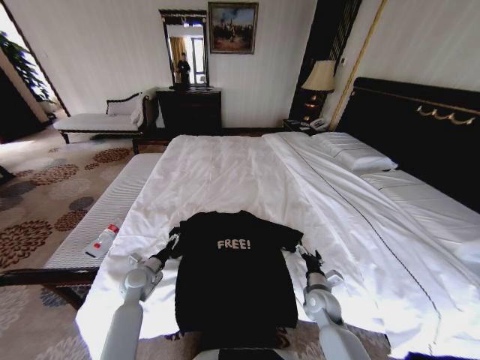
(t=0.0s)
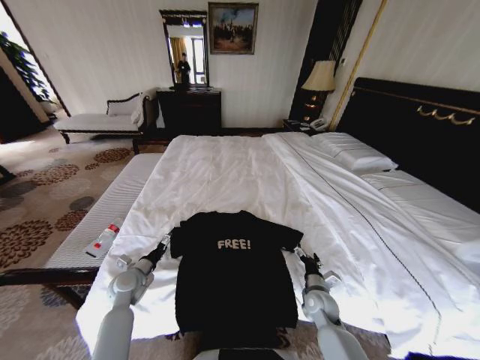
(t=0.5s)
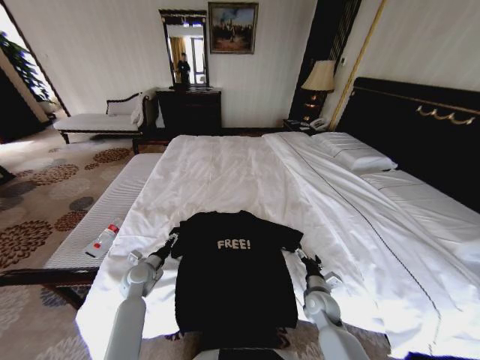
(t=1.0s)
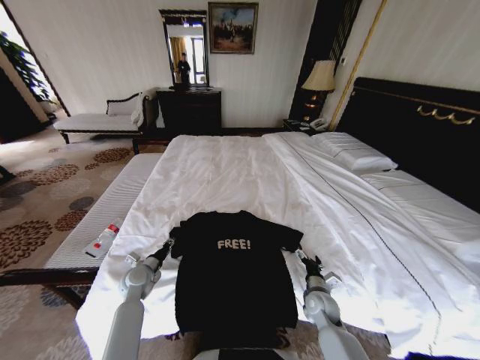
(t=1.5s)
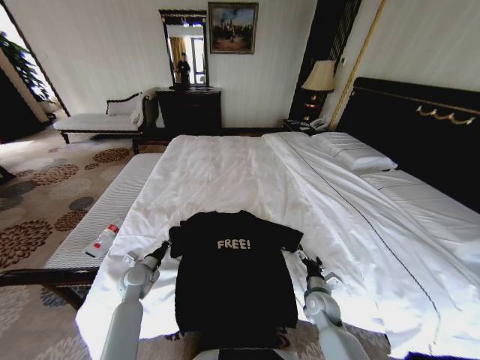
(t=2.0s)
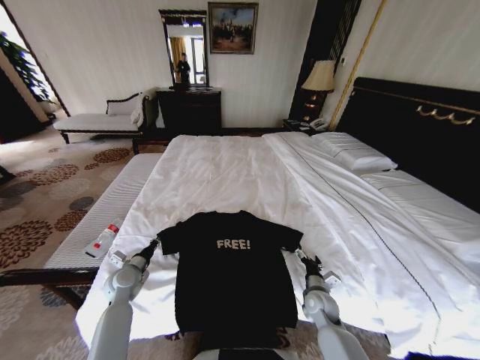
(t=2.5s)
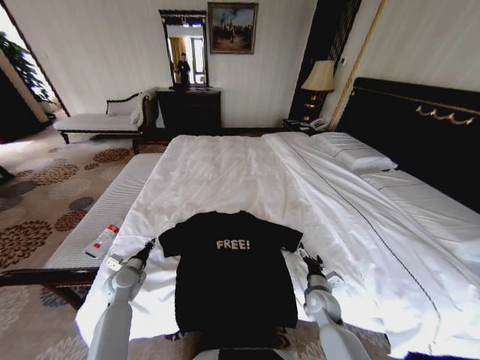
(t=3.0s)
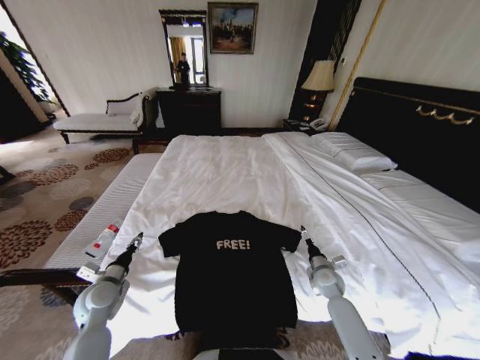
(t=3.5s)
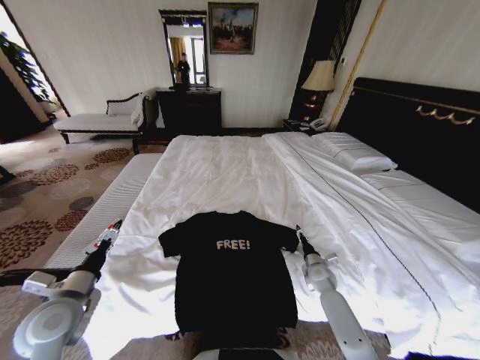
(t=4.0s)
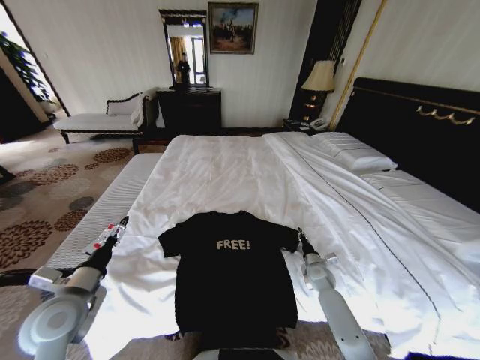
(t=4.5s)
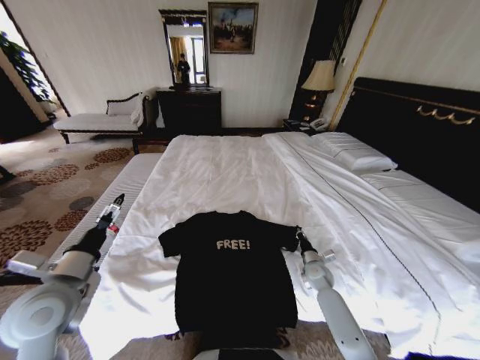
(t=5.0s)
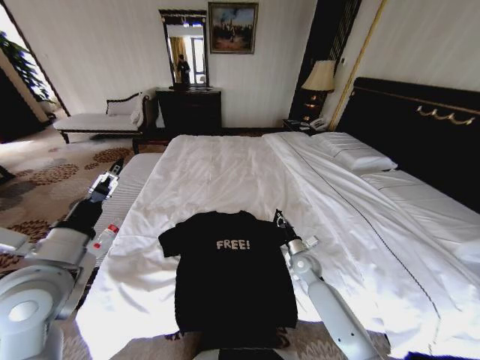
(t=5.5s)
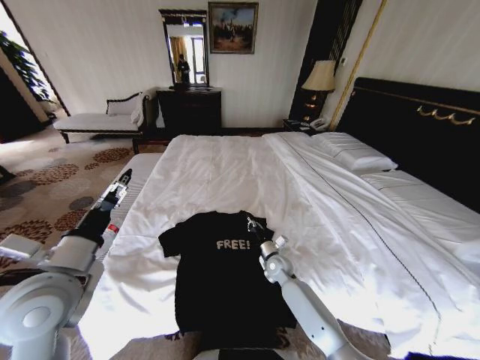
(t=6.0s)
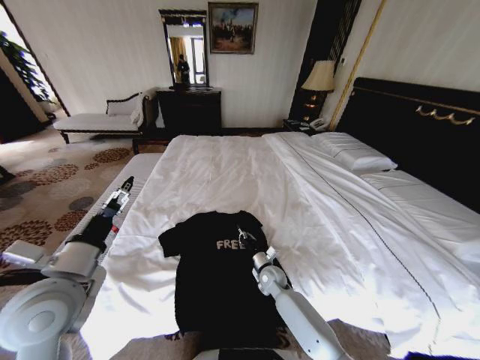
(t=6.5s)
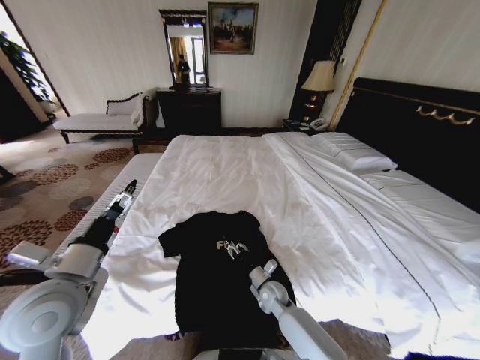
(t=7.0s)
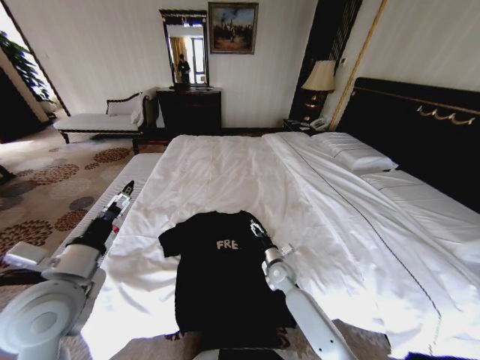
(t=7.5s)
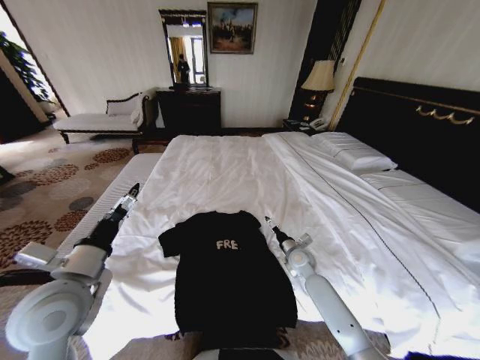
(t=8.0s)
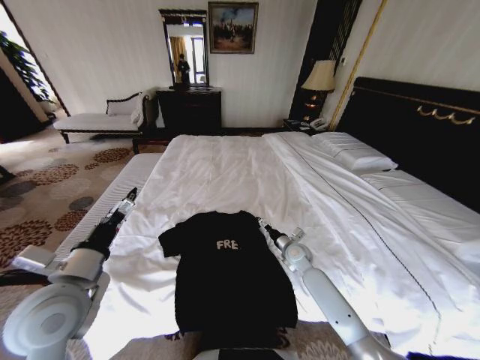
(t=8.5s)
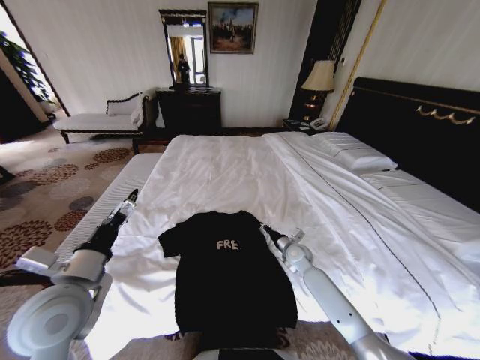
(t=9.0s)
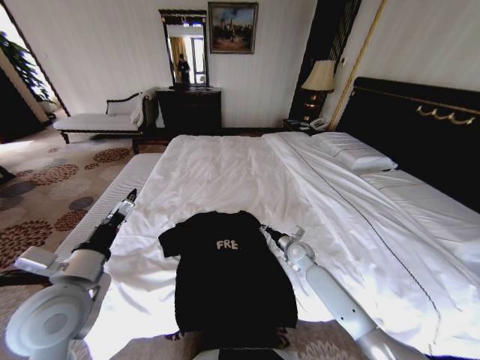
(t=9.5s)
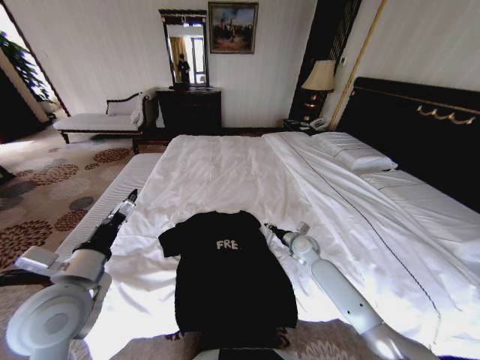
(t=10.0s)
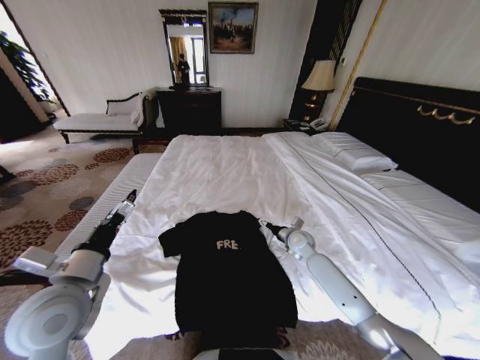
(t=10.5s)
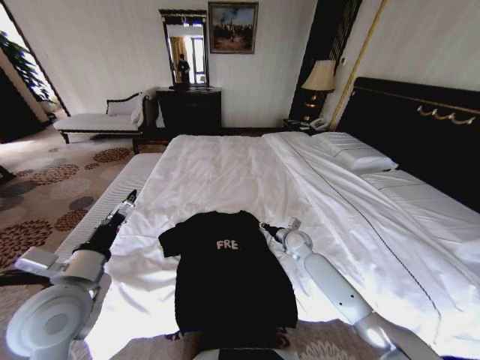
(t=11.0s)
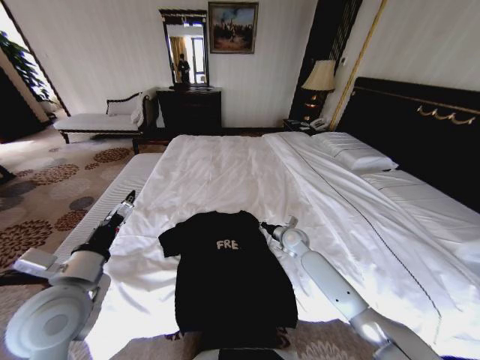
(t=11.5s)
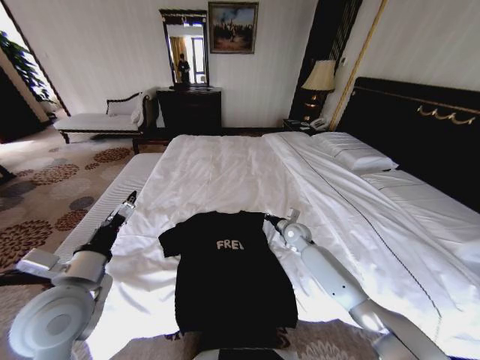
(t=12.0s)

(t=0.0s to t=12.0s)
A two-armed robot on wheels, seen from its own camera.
Task of the whole recording: Fold the clothes on the bed.
t=0.0s - t=2.0s: The left gripper closes up.
t=2.0s - t=4.0s: The left gripper goes about 20 cm upward and backward, and opens. Meanwhile the right gripper is displaced forward and to the right by roughly 10 cm.
t=4.0s - t=6.0s: The right gripper is displaced to the left by approximately 15 cm, and closes up, while the left gripper shifts approximately 15 cm upward and to the right.
t=6.0s - t=8.0s: The right gripper shifts roughly 10 cm to the right, and opens up.
t=8.0s - t=10.0s: The right gripper ends up about 5 cm from where it was, and closes its fingers.
t=10.0s - t=12.0s: The right gripper shifts by roughly 5 cm, and opens and closes again.

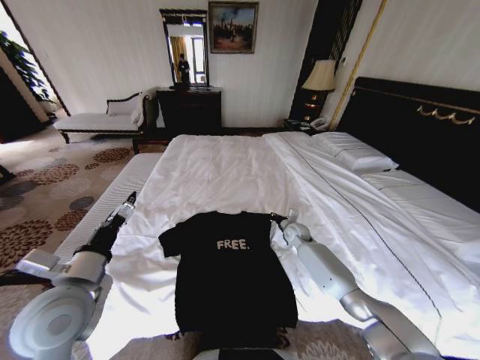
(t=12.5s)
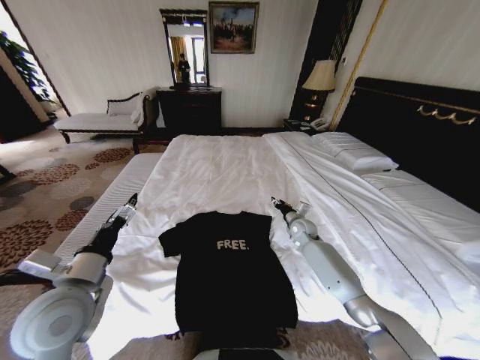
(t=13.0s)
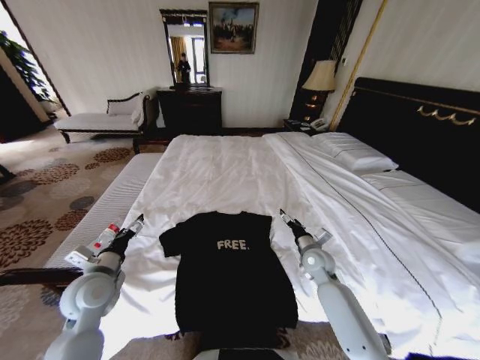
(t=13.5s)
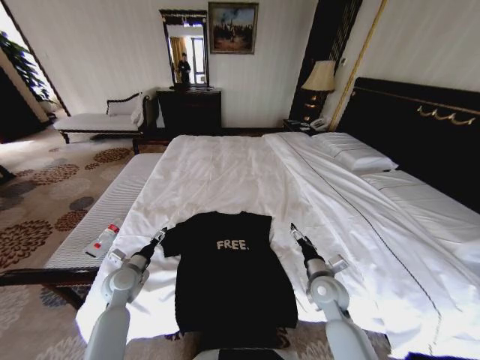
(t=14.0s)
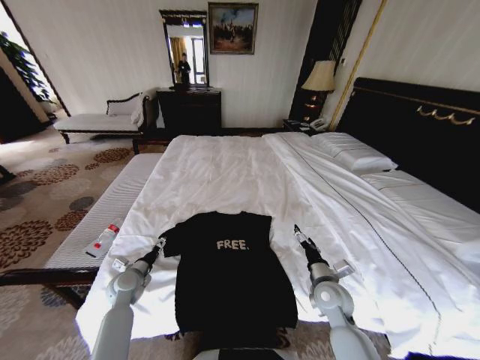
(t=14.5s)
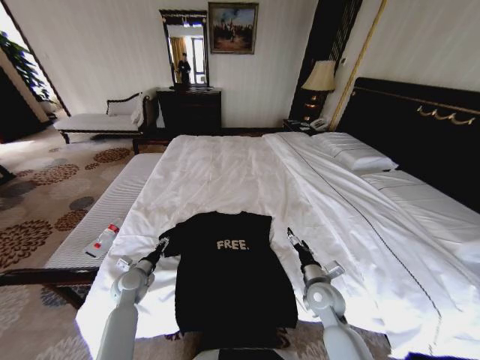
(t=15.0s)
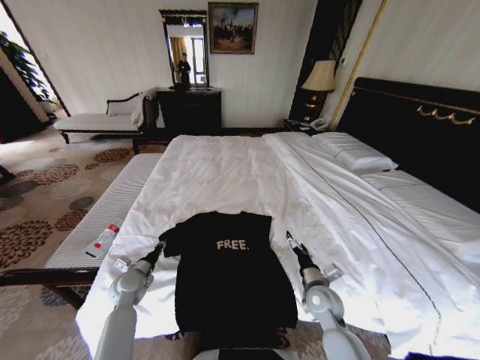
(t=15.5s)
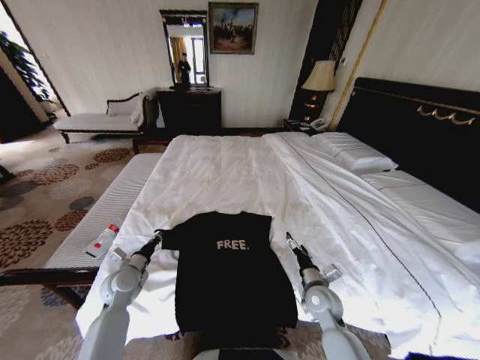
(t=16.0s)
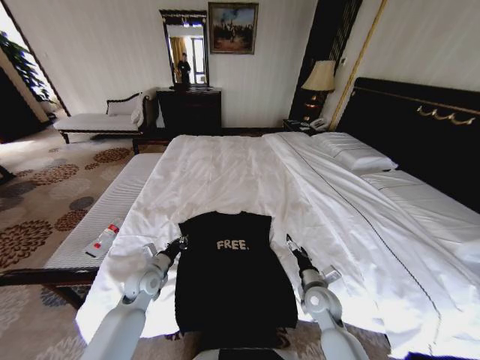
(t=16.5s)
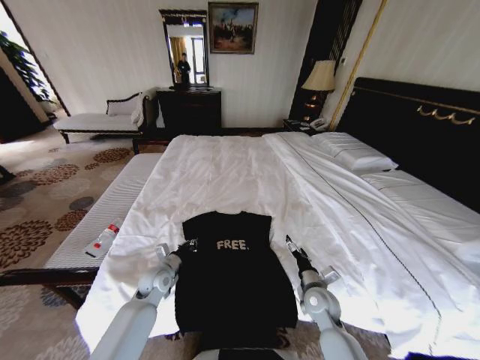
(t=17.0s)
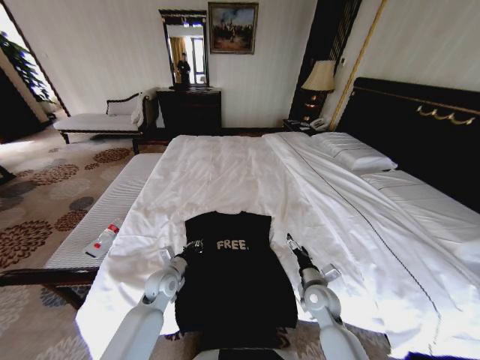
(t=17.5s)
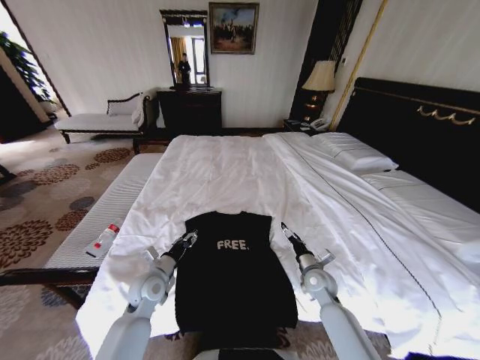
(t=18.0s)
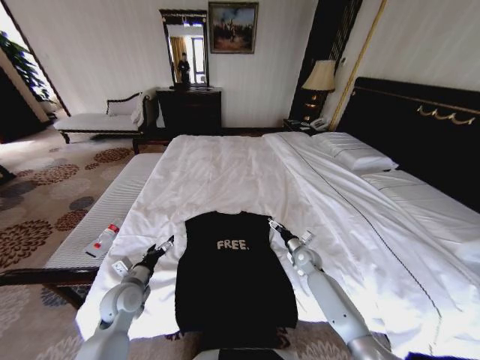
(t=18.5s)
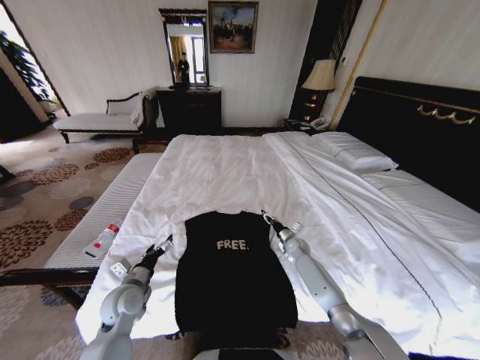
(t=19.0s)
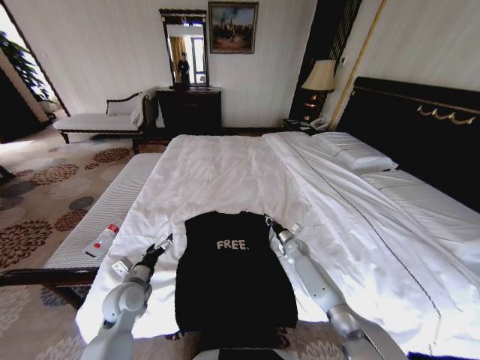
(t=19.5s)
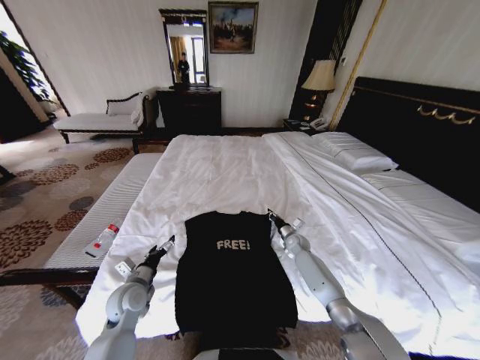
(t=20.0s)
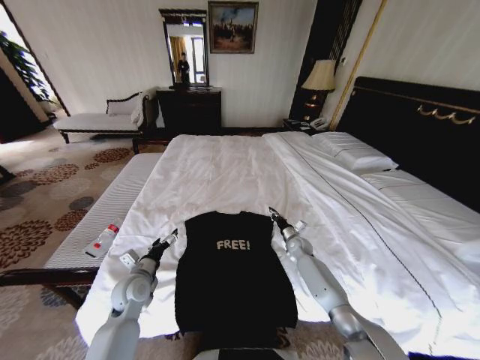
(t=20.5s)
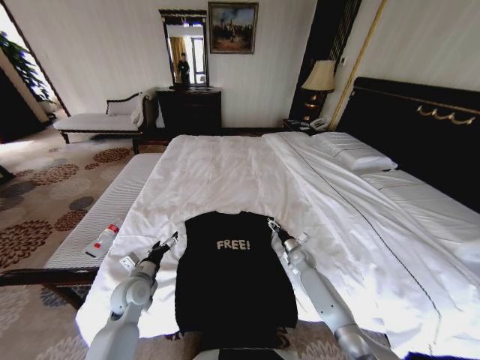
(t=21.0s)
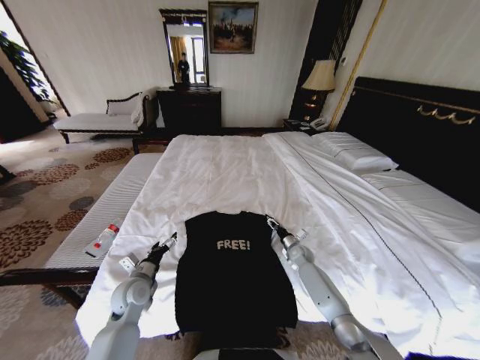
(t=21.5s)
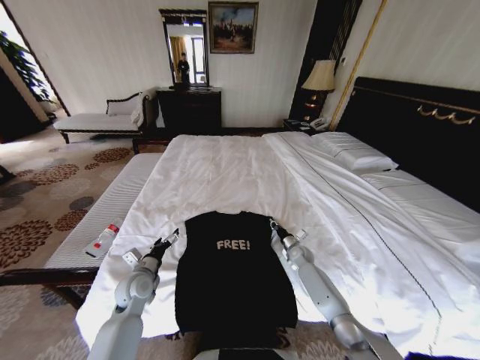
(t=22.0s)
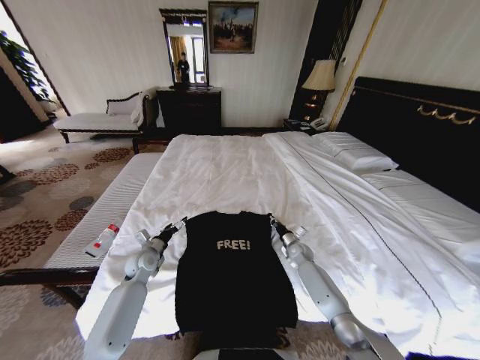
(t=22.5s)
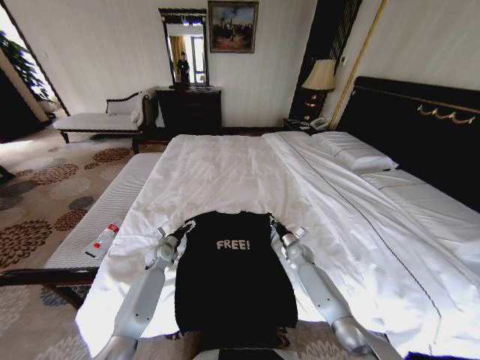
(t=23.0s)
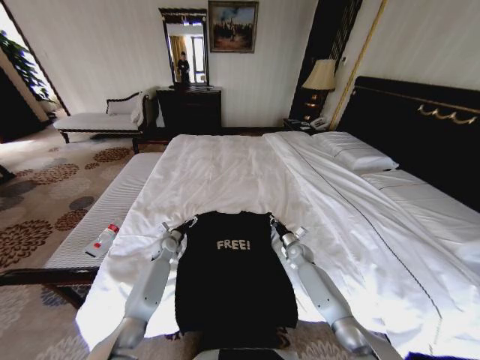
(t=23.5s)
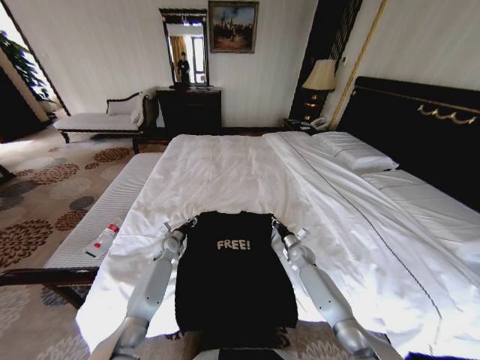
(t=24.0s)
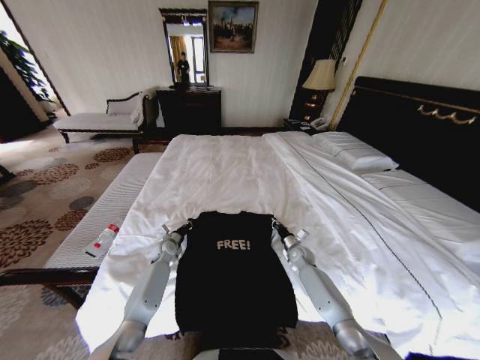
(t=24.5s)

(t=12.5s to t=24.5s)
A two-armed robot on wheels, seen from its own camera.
Task of the whole recording: Fold the clothes on the bed.
t=12.5s - t=14.5s: The right gripper moves backward, approximately 25 cm, and opens up. The left gripper goes approximately 25 cm downward and forward.
t=14.5s - t=16.5s: The left gripper moves to the right, approximately 5 cm, and closes up.
t=16.5s - t=18.5s: The right gripper travels forward by approximately 15 cm. The left gripper shifts roughly 5 cm backward, and opens up.
t=18.5s - t=20.5s: The right gripper shifts approximately 5 cm forward, and closes up.
t=20.5s - t=22.5s: The left gripper moves forward, approximately 10 cm. Meanwhile the right gripper opens, then closes again.
t=22.5s - t=24.5s: The left gripper moves forward and downward, some 10 cm, and closes.

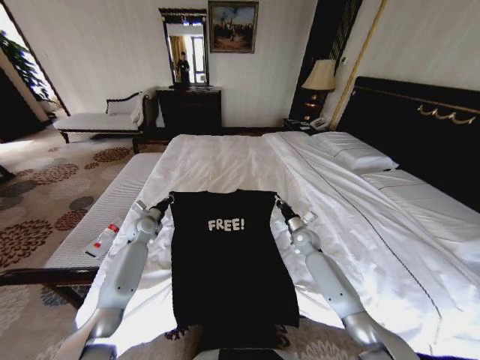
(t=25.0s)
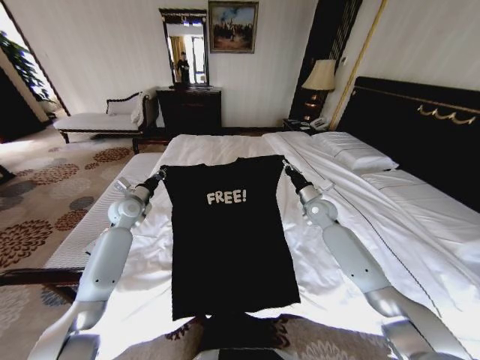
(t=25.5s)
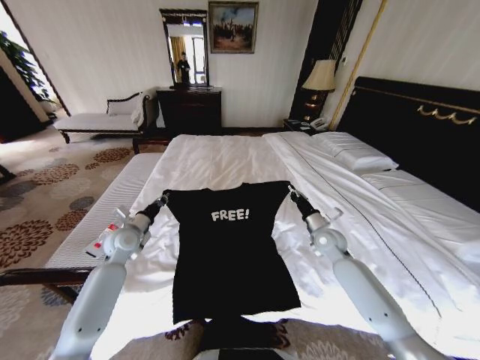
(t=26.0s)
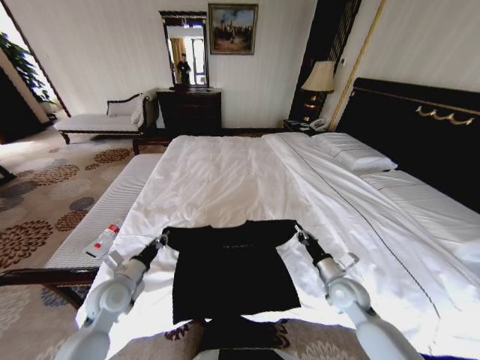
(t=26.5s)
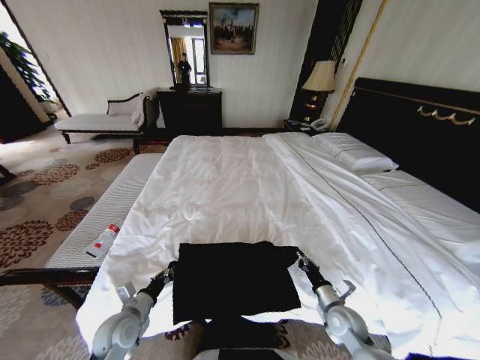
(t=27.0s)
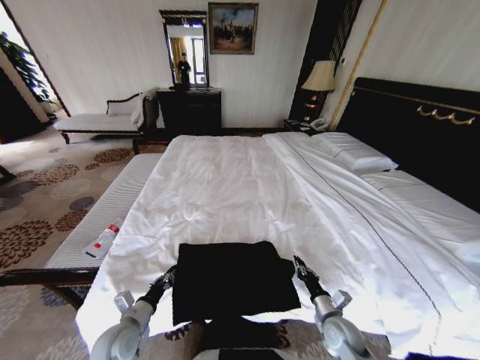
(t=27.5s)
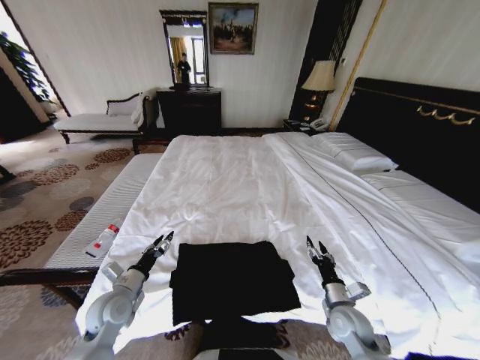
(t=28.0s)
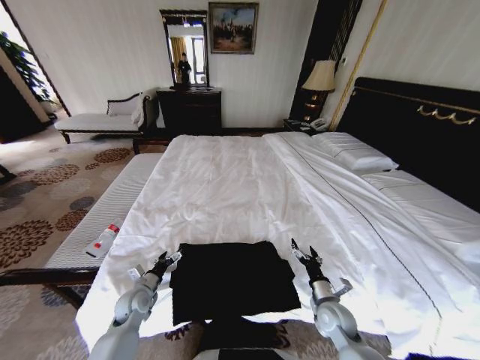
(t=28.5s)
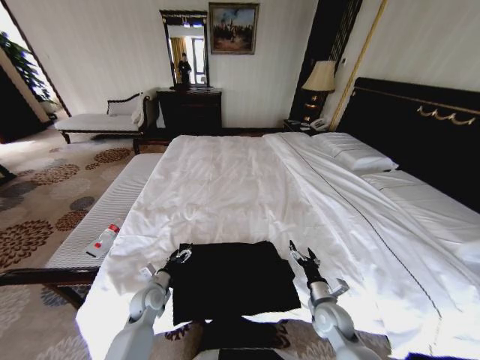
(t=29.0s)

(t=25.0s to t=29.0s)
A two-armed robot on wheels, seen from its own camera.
Task of the whole recording: Fold the clothes on the bed.
t=25.0s - t=27.0s: Both grippers travel together backward, approximately 25 cm.
t=27.0s - t=29.0s: The left gripper shifts about 10 cm forward and downward, and opens its fingers. The right gripper opens.
